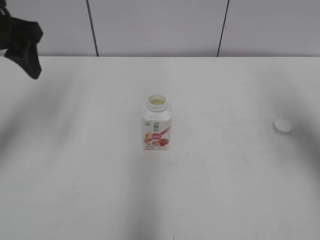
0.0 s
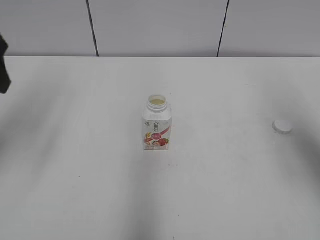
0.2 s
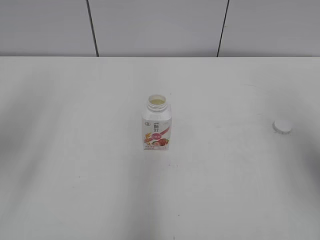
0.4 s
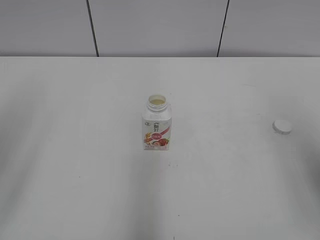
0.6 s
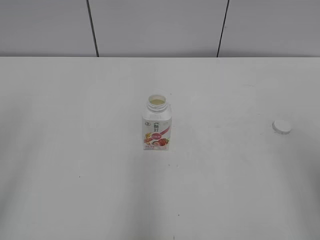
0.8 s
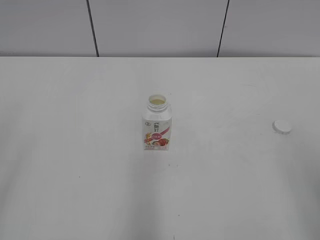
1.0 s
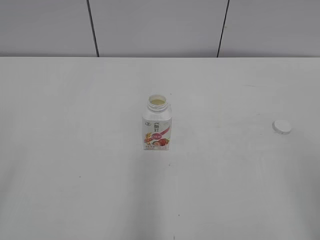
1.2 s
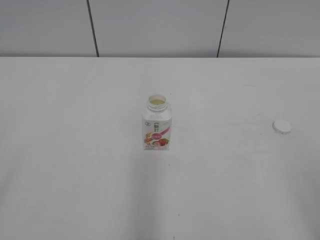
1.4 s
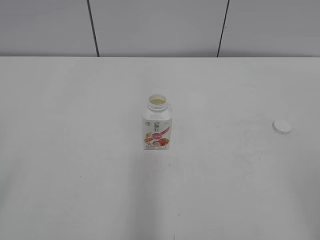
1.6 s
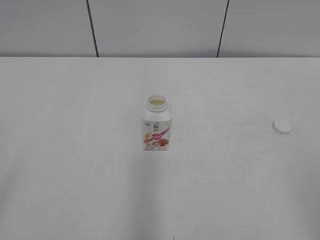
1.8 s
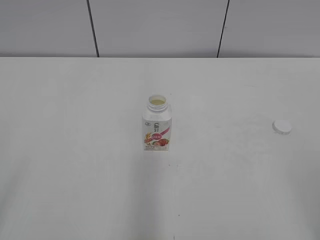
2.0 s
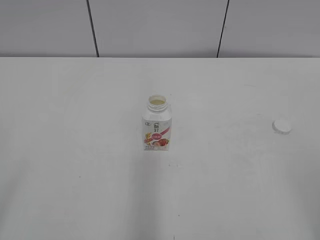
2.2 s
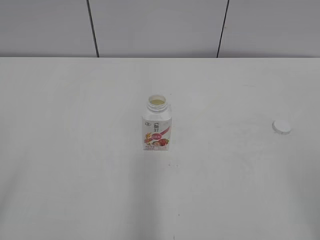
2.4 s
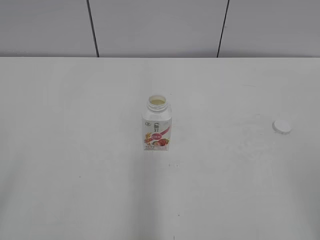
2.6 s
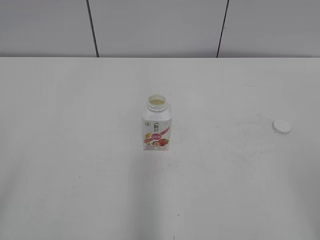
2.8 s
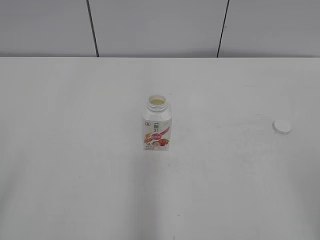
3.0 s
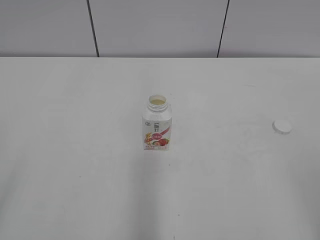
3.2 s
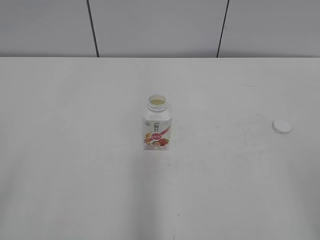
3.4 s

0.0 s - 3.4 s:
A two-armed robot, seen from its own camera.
0.0 s - 1.6 s: The two grippers go some 30 cm backward.
